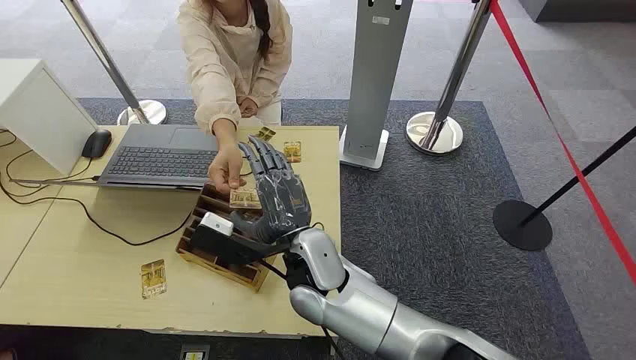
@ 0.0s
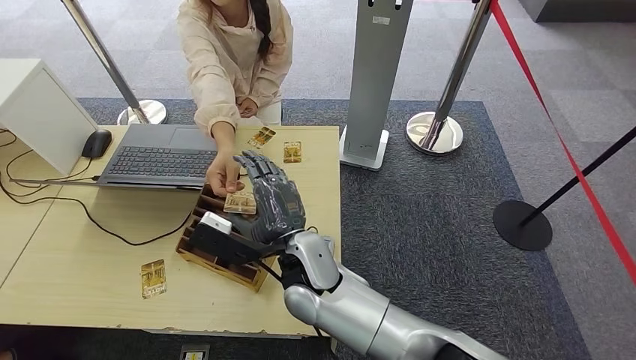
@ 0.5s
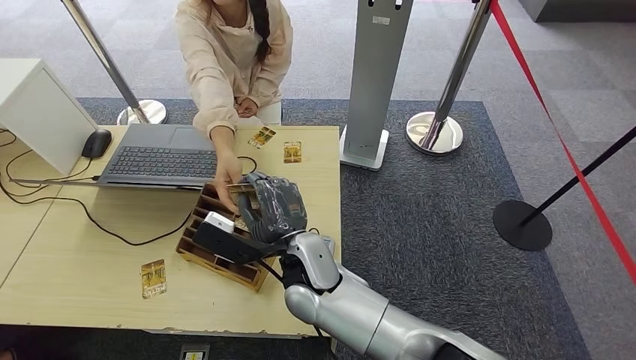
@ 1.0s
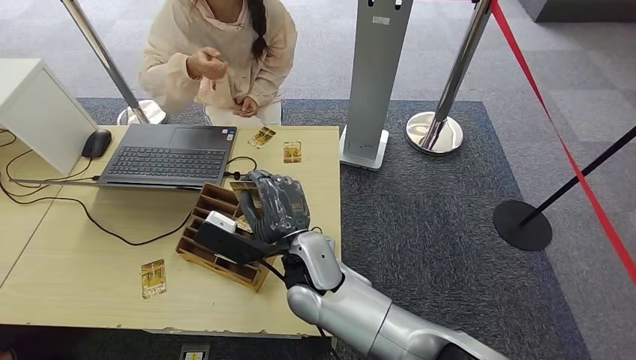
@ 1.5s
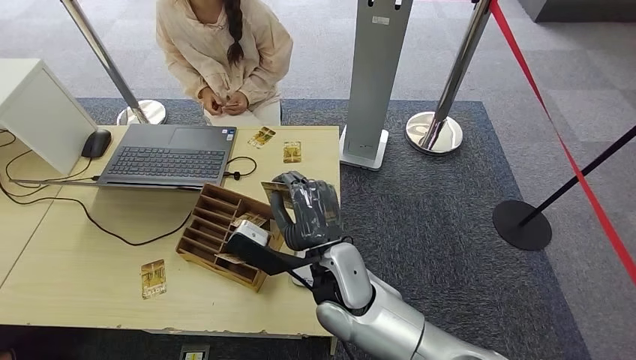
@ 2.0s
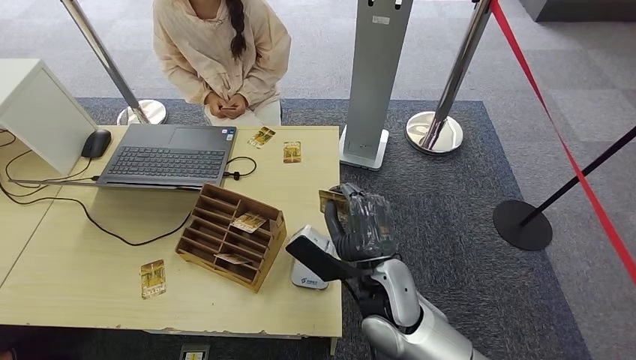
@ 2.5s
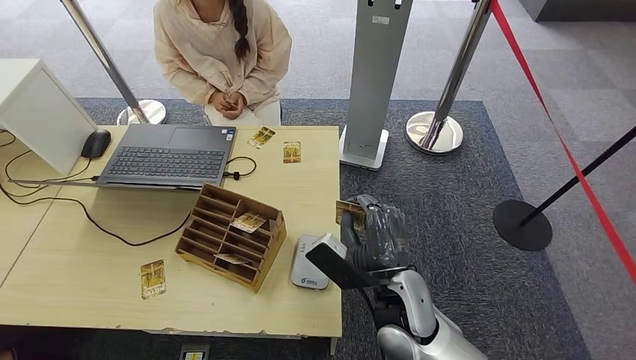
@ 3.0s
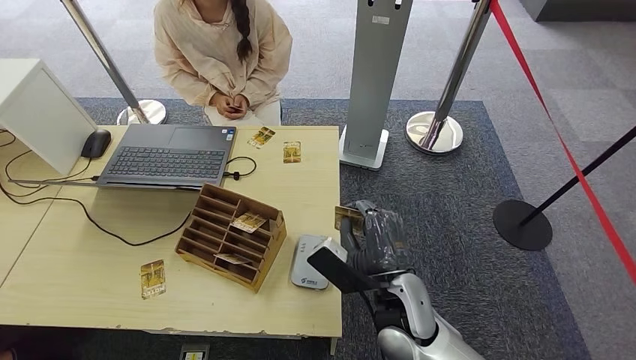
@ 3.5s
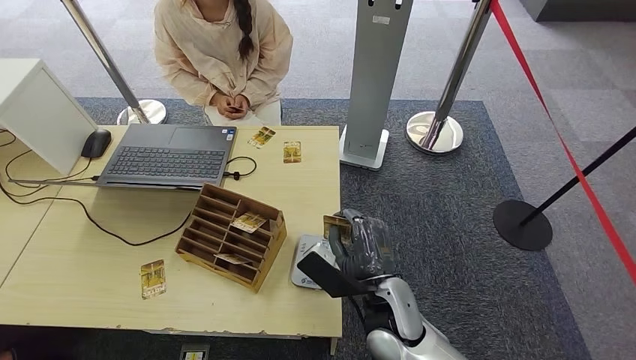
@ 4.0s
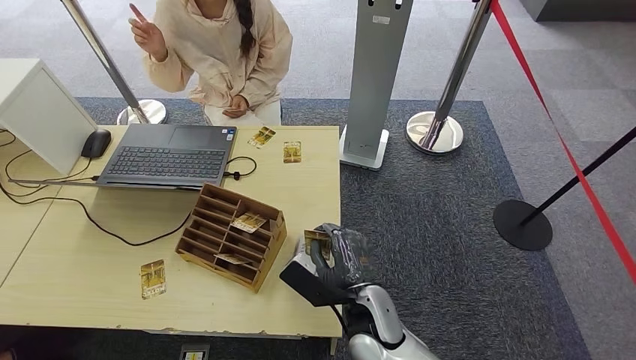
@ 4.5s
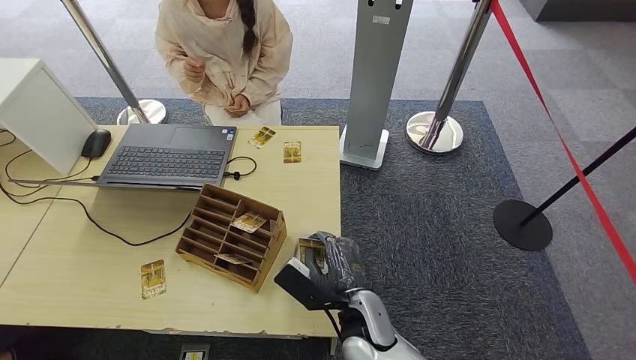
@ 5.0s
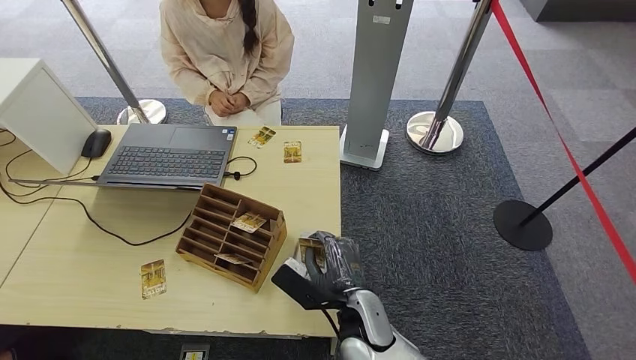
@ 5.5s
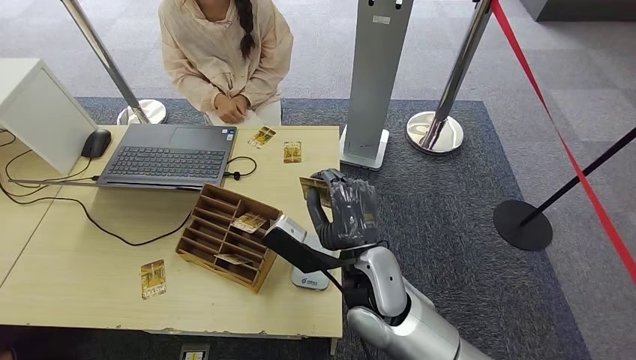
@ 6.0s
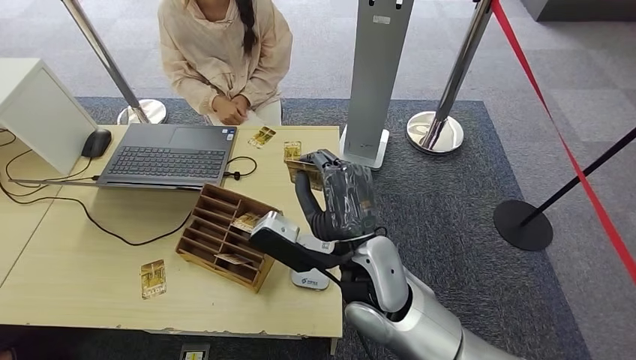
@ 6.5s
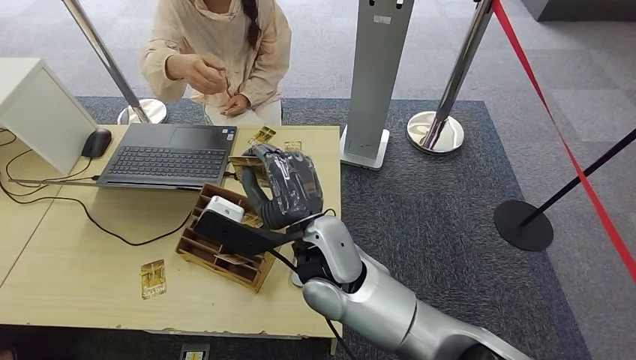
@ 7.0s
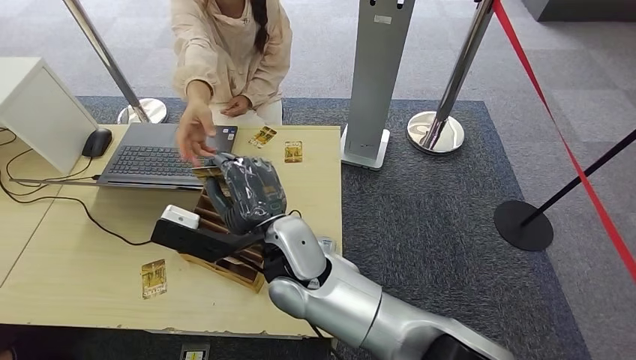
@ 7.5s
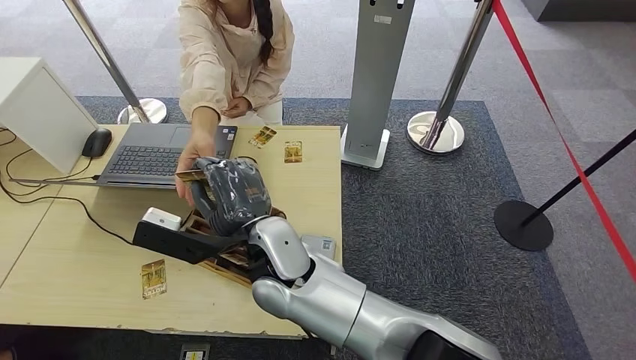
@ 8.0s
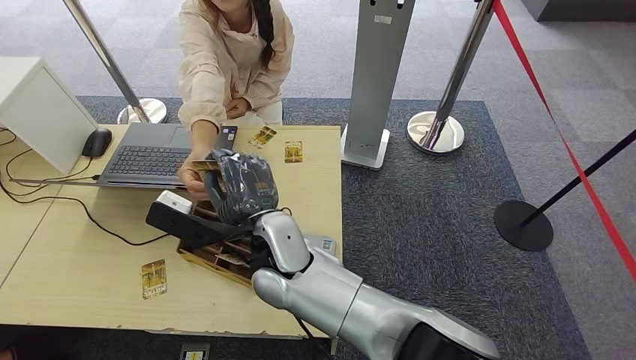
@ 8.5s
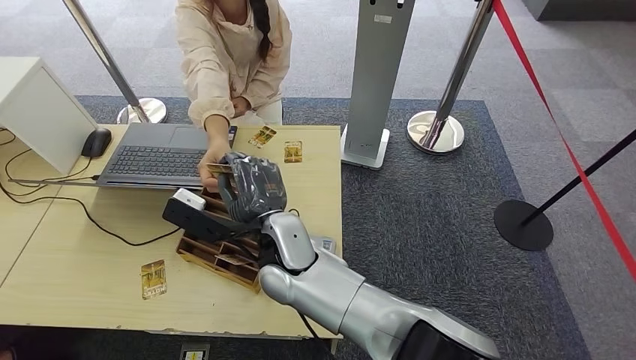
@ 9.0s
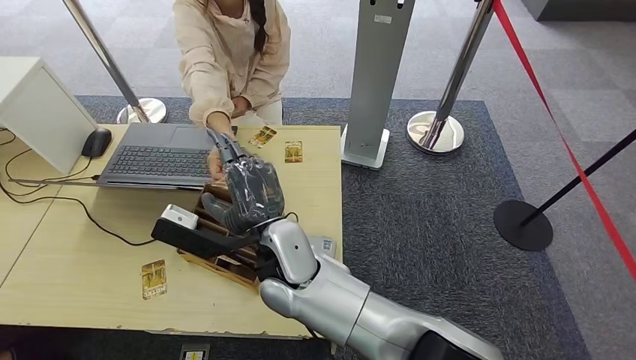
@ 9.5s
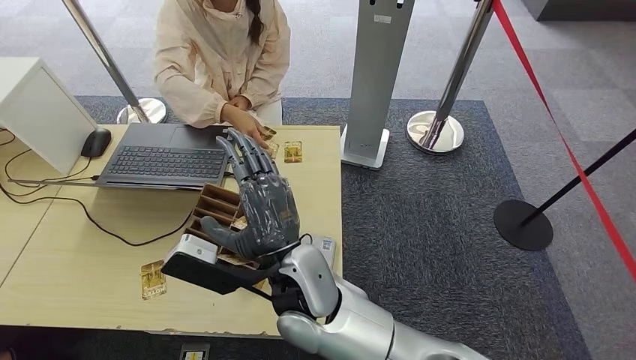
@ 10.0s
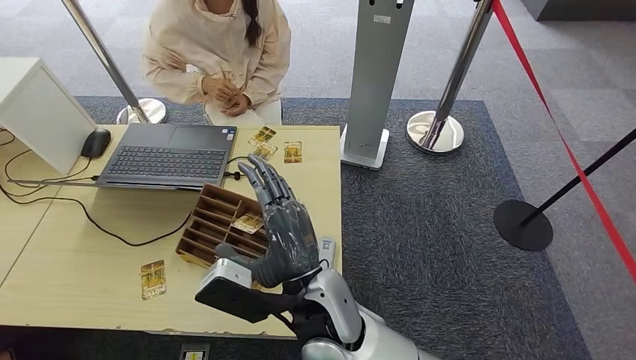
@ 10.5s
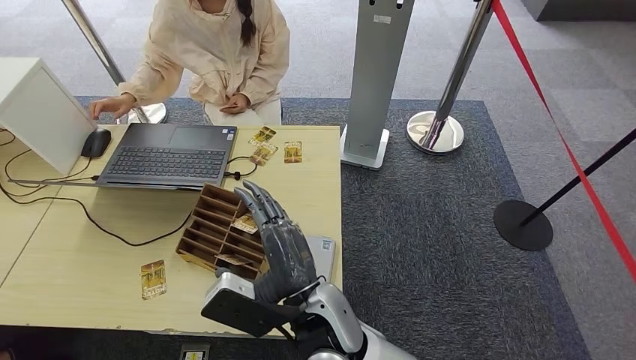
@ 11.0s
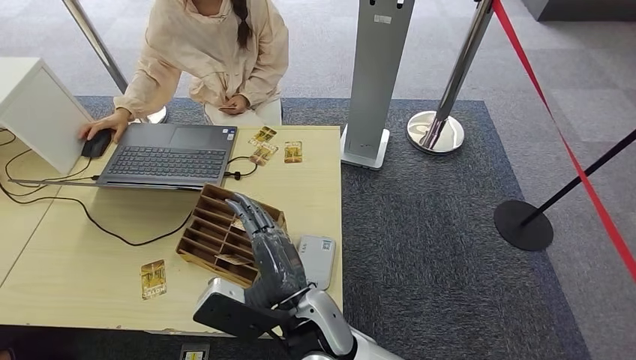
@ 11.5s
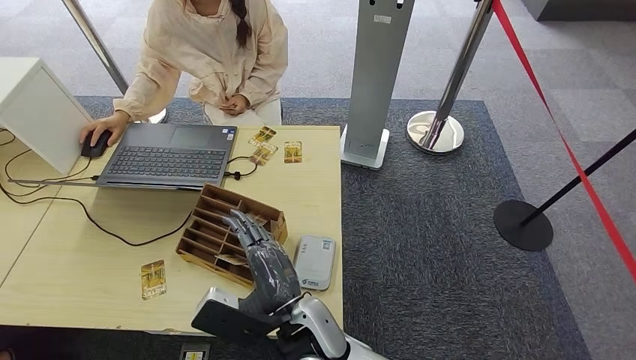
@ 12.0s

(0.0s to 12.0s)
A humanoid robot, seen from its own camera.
Step, 0.0s - 2.0s: Take the ID card from the person's hand.
Step, 2.5s - 5.0s: Place the ID card on the card reader.
Step, 5.5s - 10.5s: Hand the ID card to the person.
2.0s - 4.0s: The right hand shifts some 10 cm to the right and downward.
4.0s - 6.0s: The right hand goes roughly 5 cm upward.
6.0s - 8.0s: The right hand shifts about 15 cm to the left.
8.0s - 10.0s: There are only small adjustments of the hands.
10.0s - 12.0s: The right hand travels downward and backward by about 10 cm.

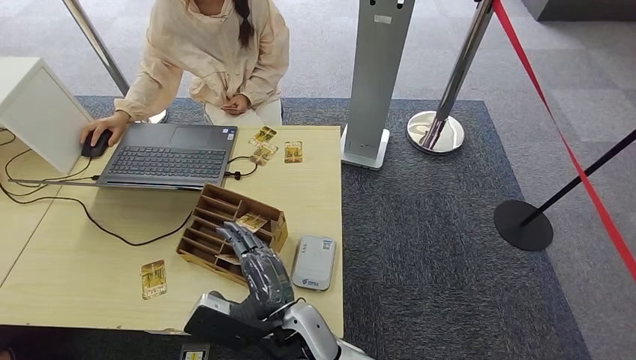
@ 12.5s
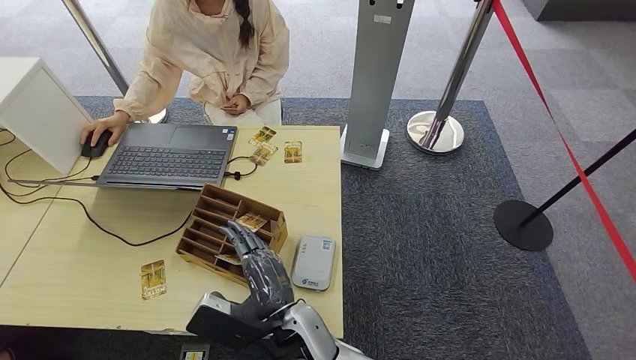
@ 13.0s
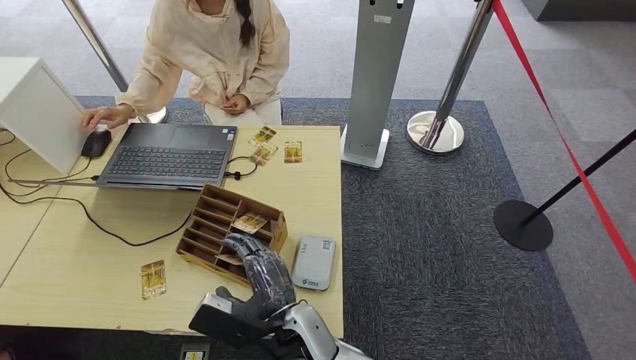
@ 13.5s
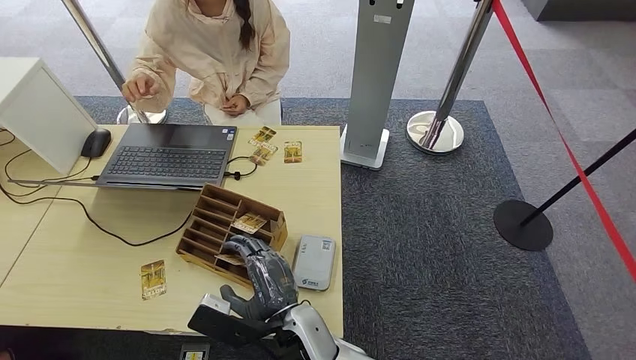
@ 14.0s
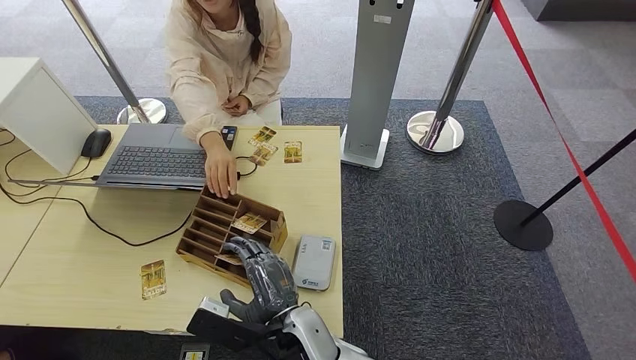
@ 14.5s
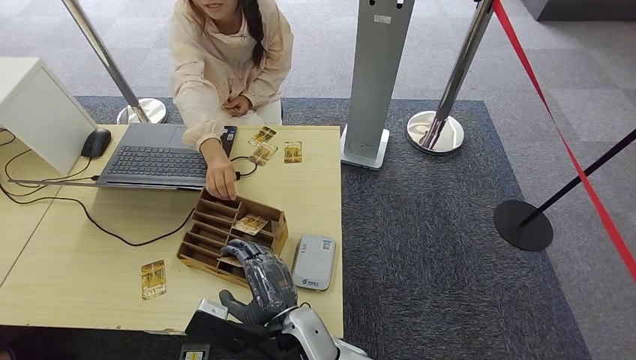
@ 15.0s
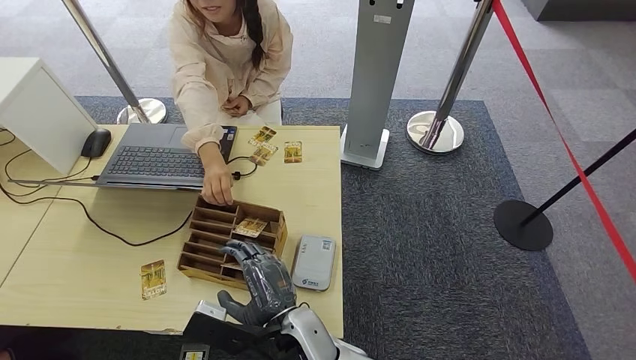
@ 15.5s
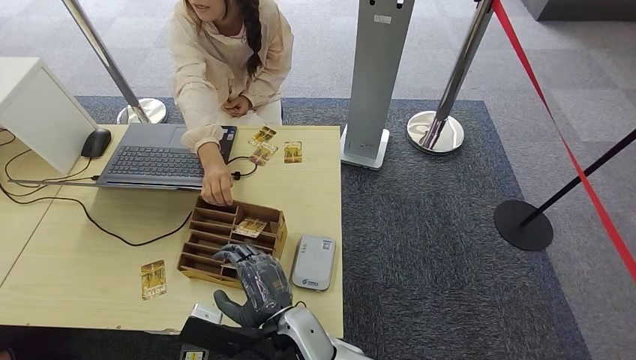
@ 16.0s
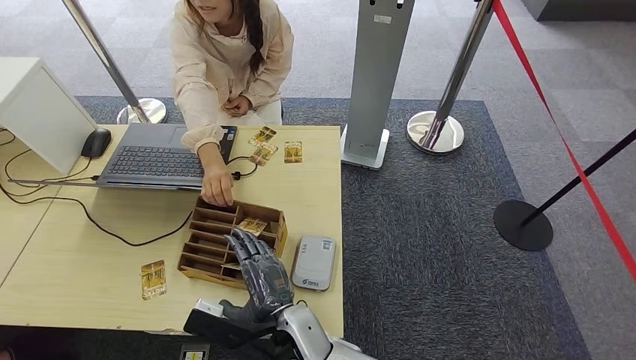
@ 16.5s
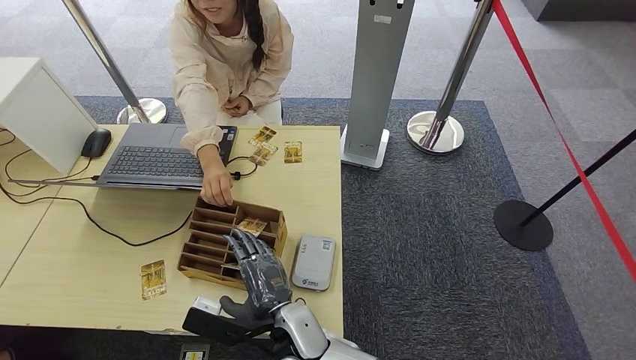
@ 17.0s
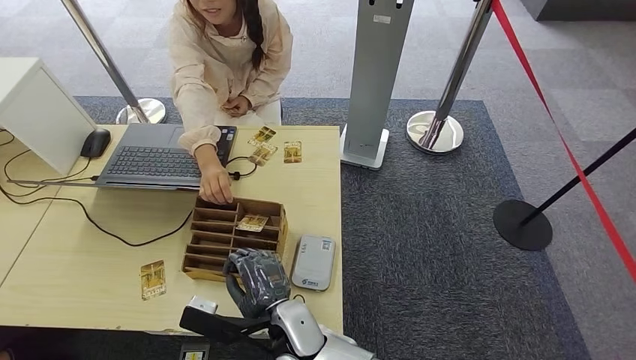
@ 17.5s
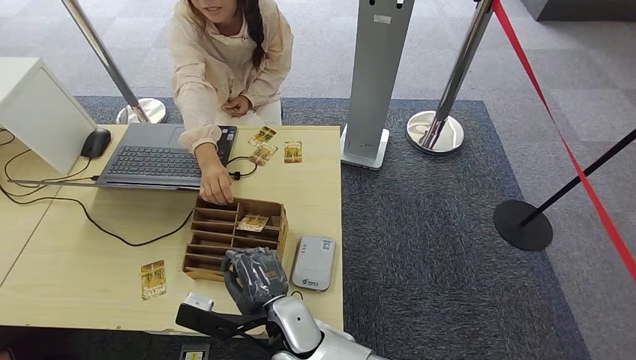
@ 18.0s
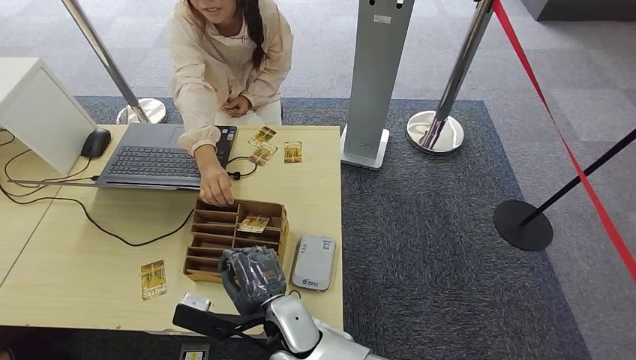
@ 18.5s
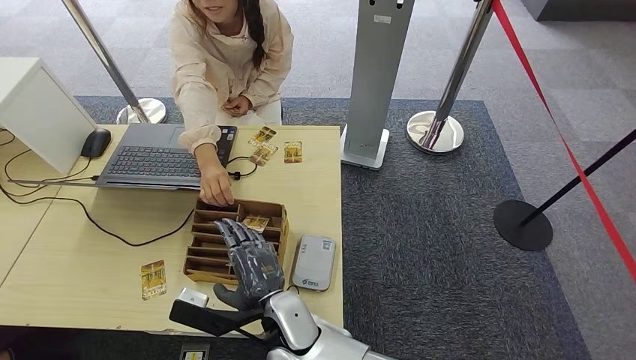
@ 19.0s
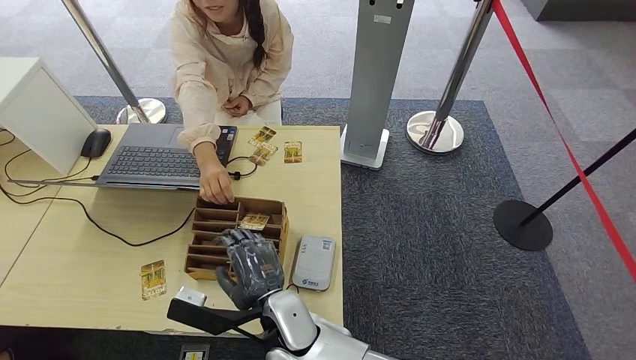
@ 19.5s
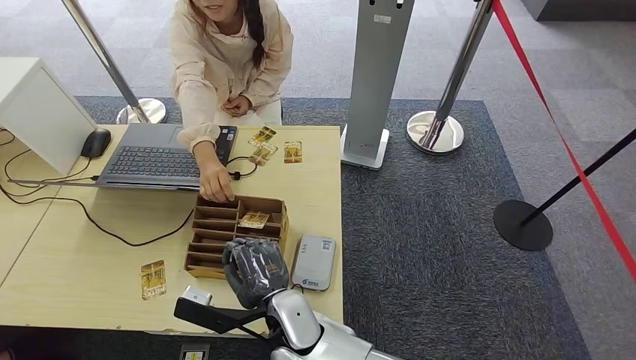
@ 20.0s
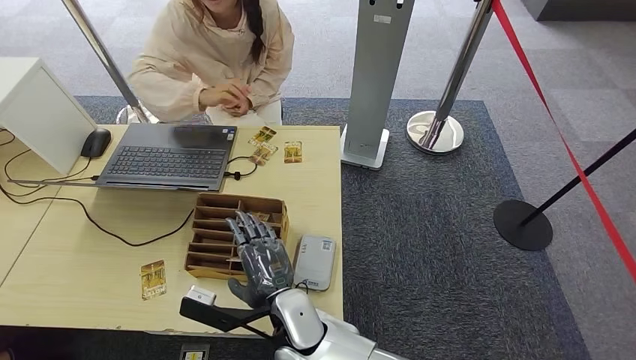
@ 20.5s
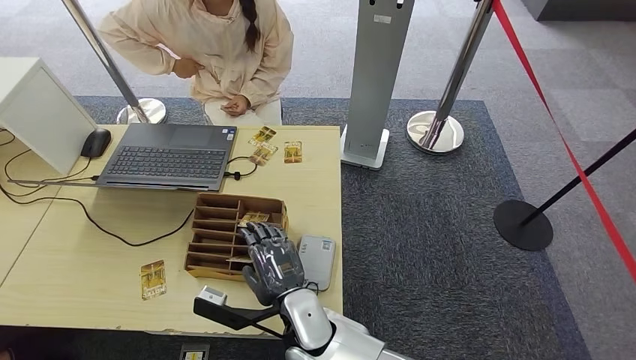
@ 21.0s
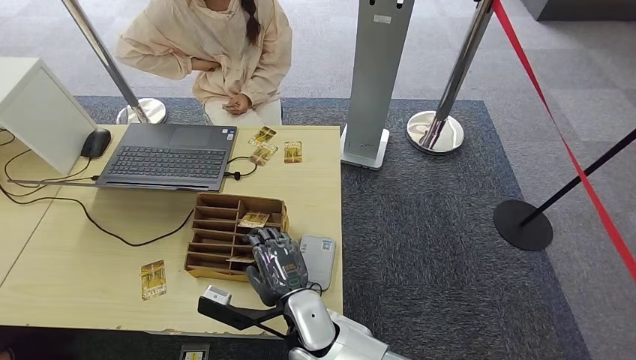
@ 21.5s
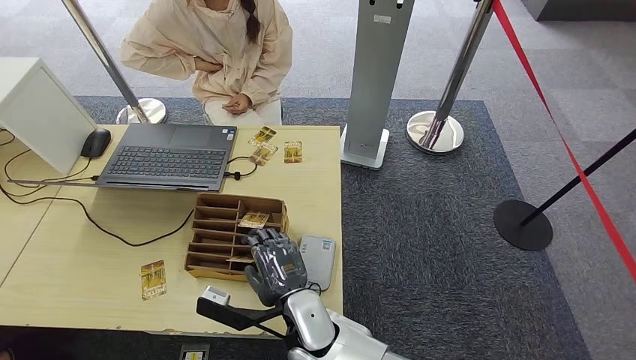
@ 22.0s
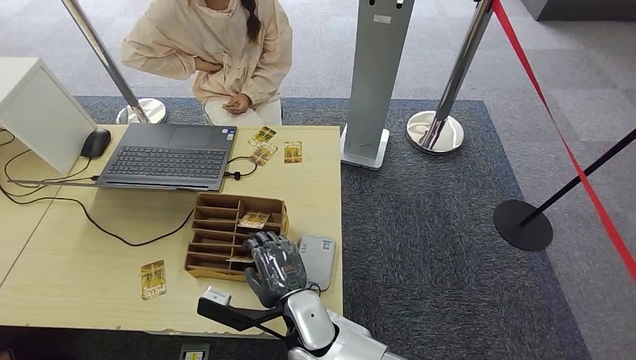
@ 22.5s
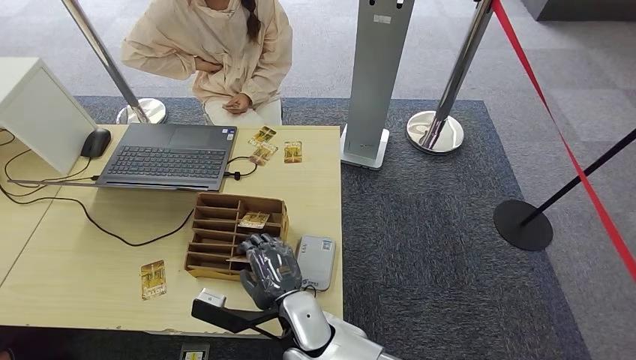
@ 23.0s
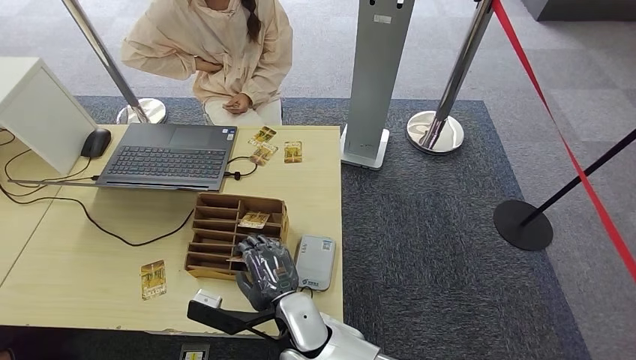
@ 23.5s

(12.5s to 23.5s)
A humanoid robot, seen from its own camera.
12.5s - 14.5s: There are only small adjustments of the hands.
14.5s - 16.0s: The two hands keep their place.
16.0s - 20.0s: The hands stay close to where they were, moving slightly.
20.0s - 21.5s: The hands move only a little.
21.5s - 23.5s: The two hands keep their place.
